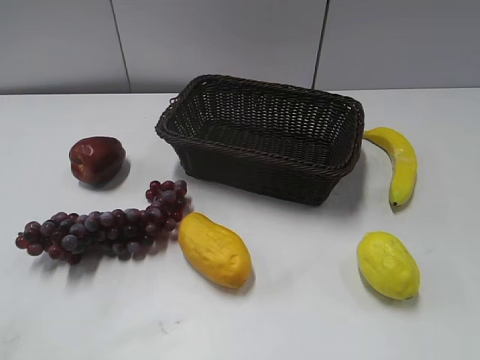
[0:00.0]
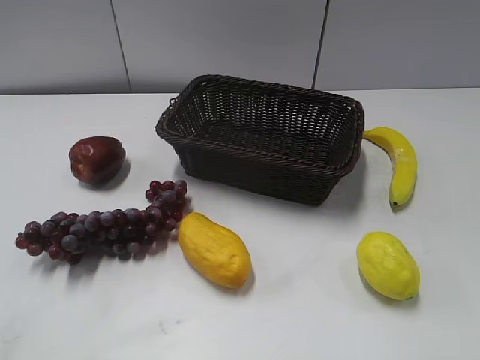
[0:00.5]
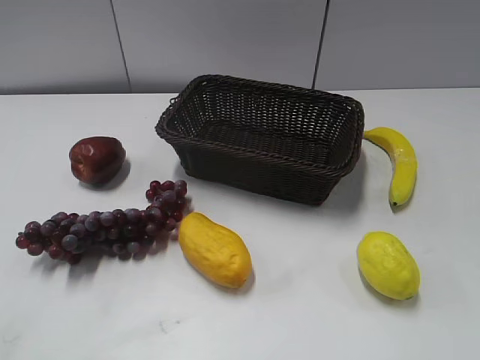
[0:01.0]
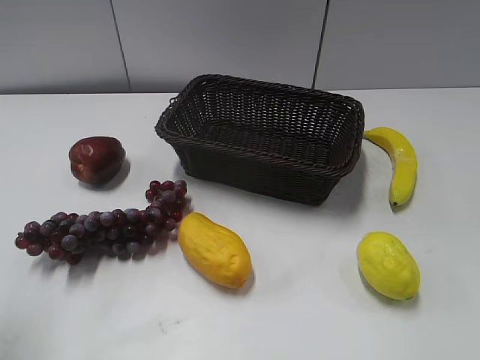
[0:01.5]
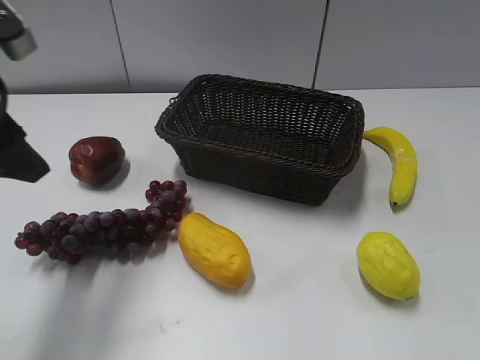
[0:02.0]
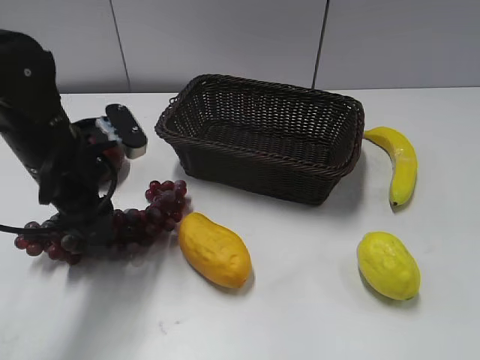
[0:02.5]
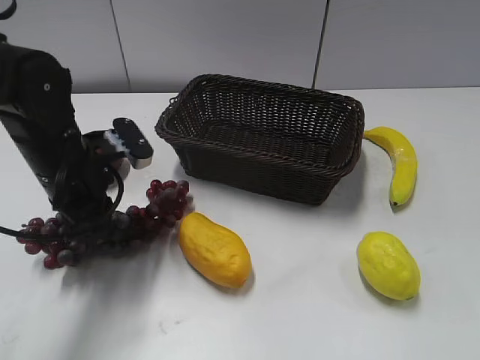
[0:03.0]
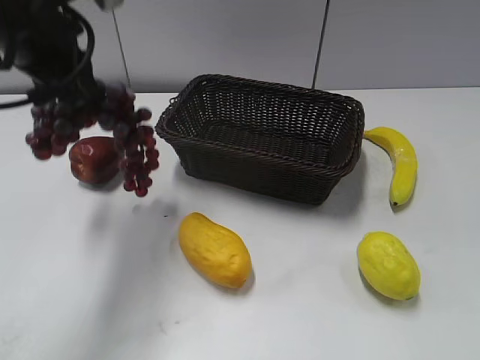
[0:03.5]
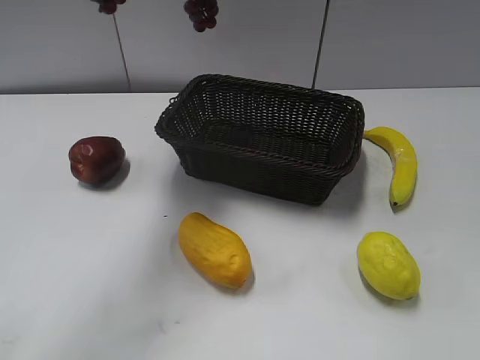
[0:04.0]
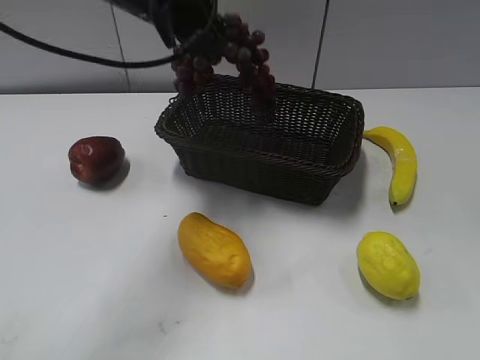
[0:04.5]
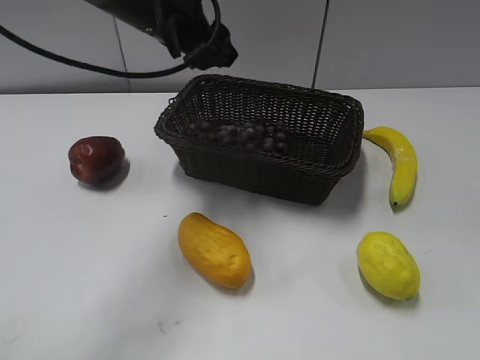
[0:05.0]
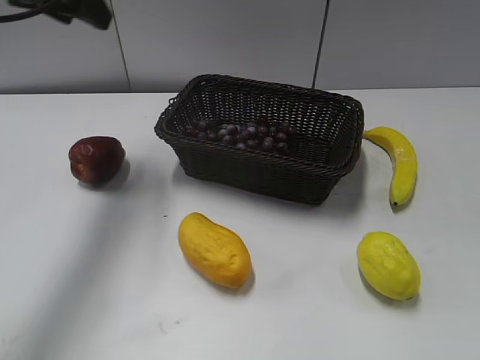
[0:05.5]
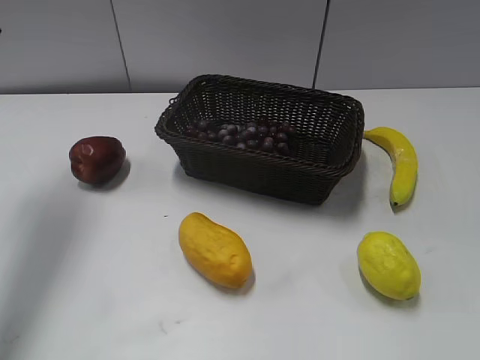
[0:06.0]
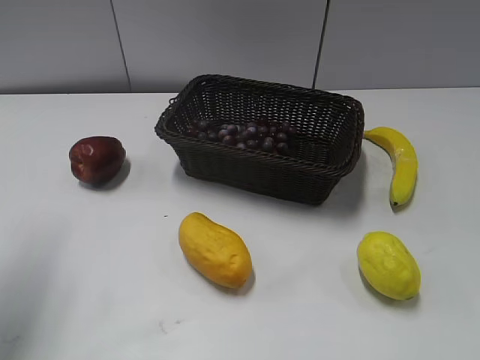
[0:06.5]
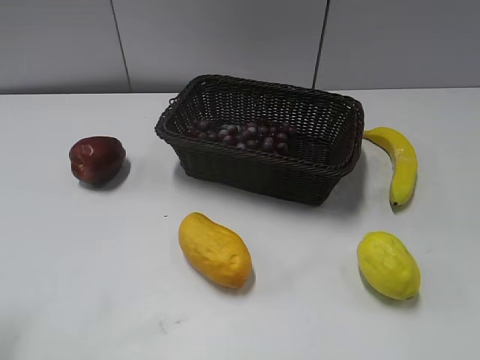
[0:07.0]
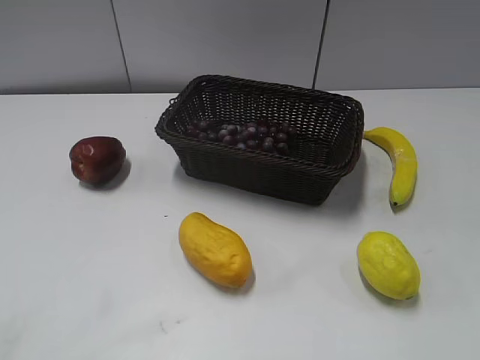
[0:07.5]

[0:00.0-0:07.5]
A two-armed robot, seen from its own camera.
Step, 0:02.0 to 0:02.5: Grasp the grape with left gripper.
Step, 0:03.0 to 0:05.0: Place the grape in the basket with left gripper.
0:02.0 to 0:04.0: The left gripper is displaced upward, forward and to the right by approximately 15 cm, and closes.
0:04.0 to 0:05.5: The left gripper is displaced downward and to the left by roughly 10 cm, and opens.
0:05.5 to 0:07.5: The left gripper is displaced backward by some 35 cm.
